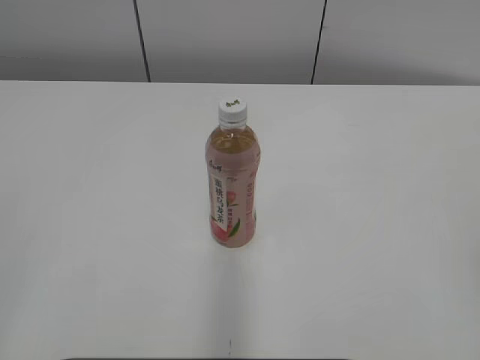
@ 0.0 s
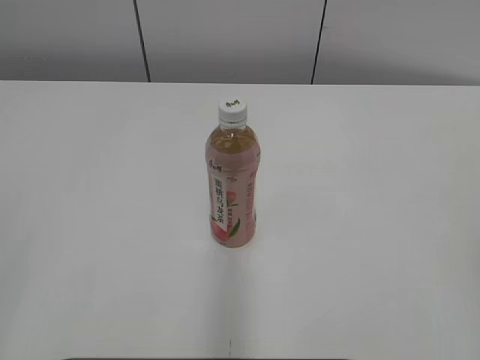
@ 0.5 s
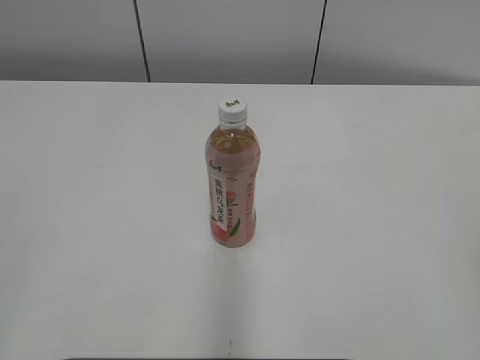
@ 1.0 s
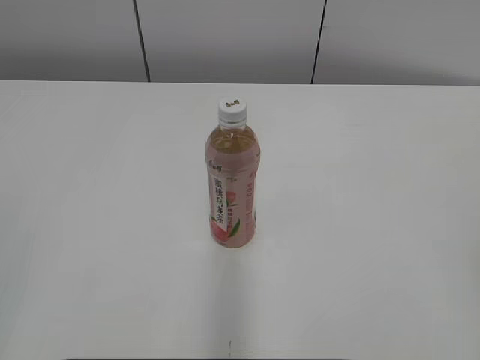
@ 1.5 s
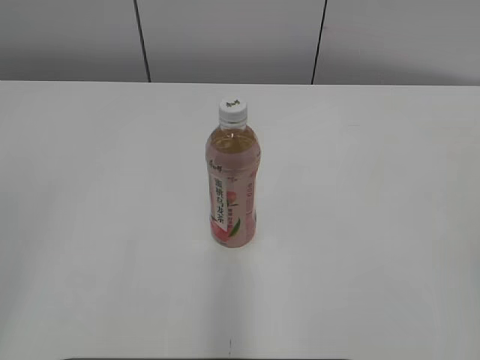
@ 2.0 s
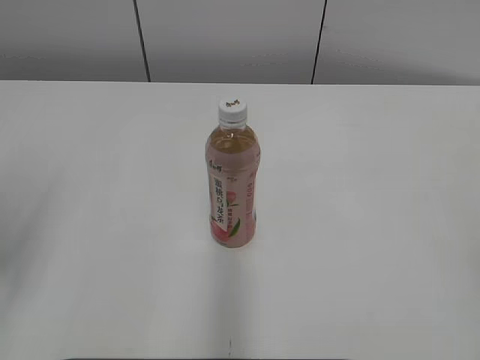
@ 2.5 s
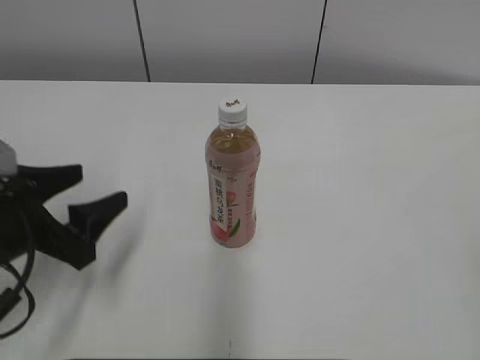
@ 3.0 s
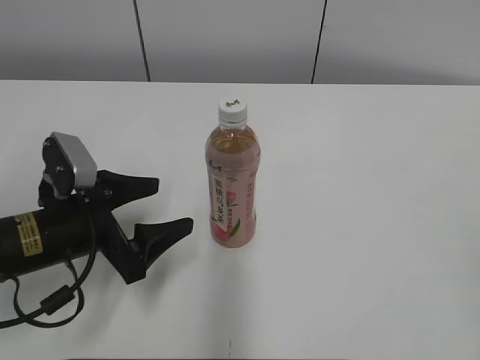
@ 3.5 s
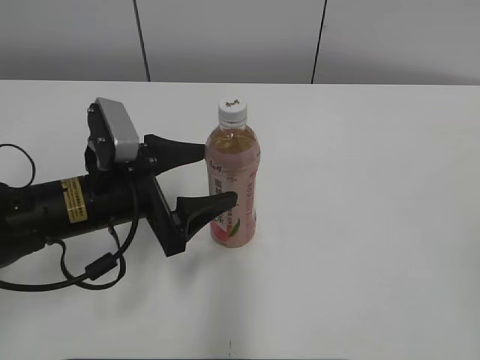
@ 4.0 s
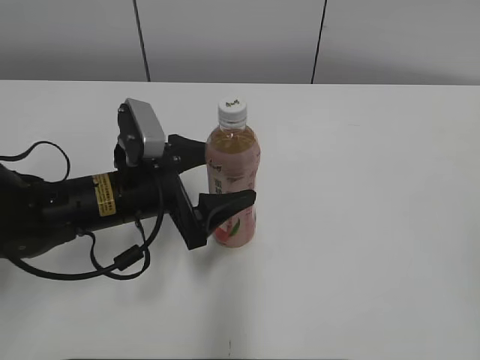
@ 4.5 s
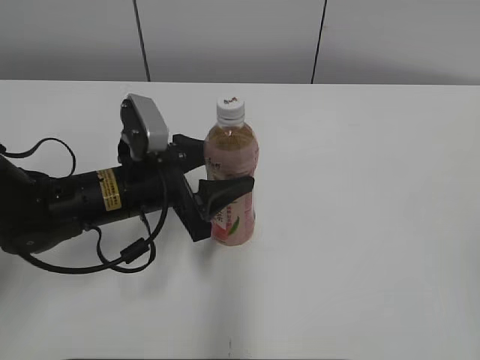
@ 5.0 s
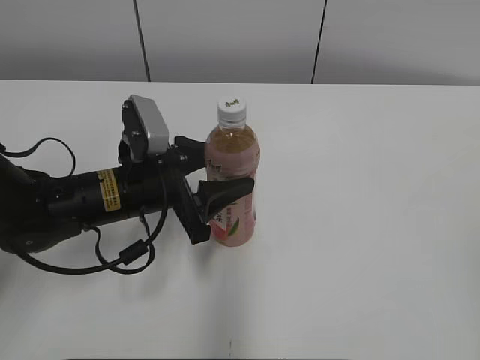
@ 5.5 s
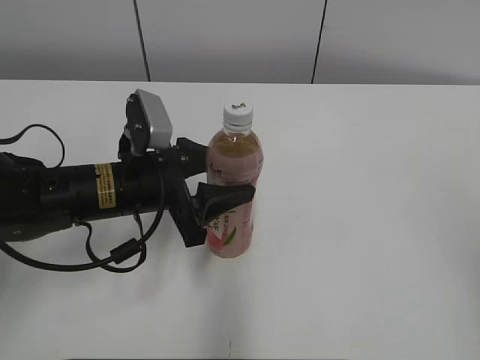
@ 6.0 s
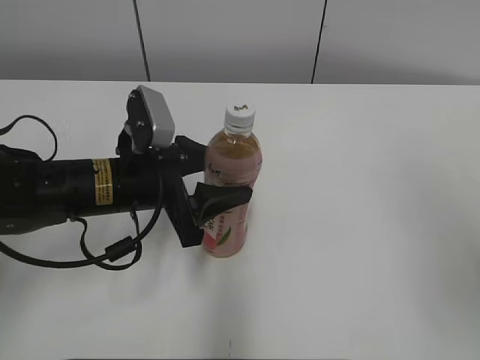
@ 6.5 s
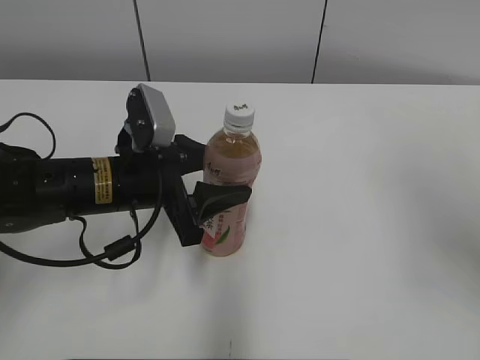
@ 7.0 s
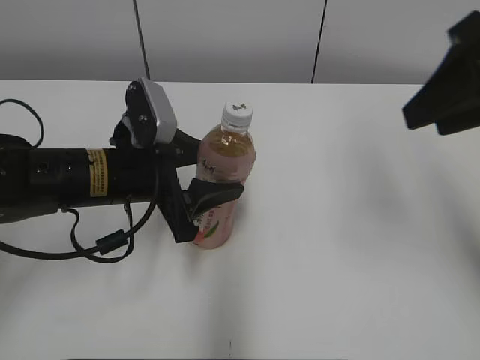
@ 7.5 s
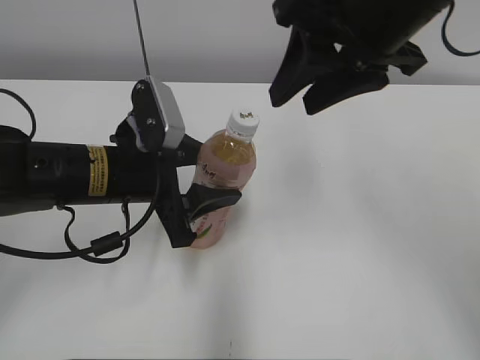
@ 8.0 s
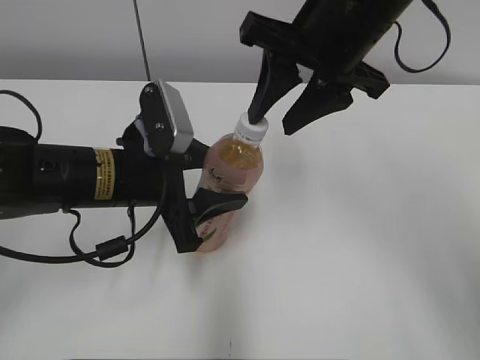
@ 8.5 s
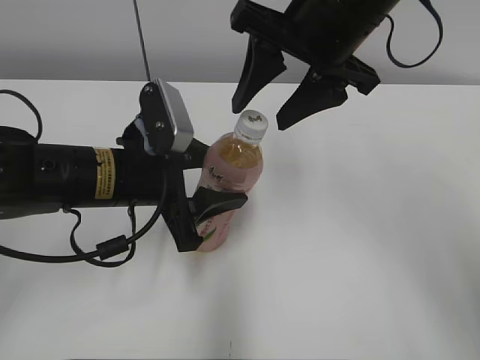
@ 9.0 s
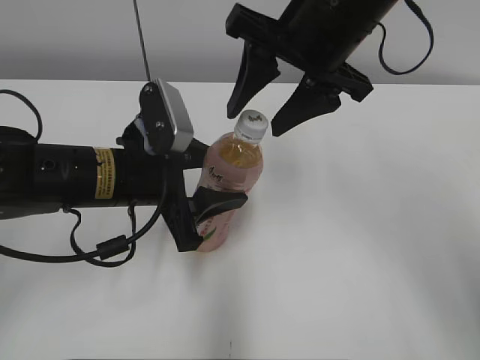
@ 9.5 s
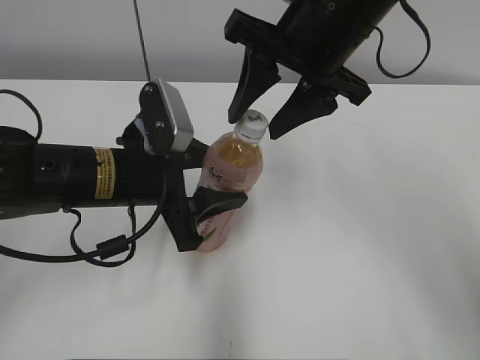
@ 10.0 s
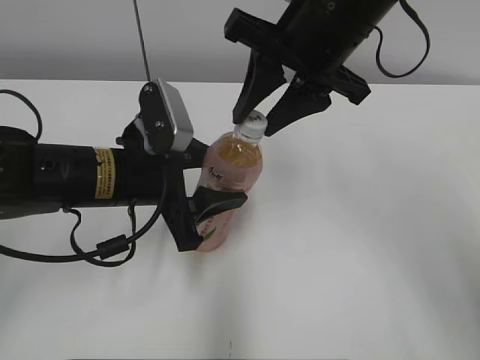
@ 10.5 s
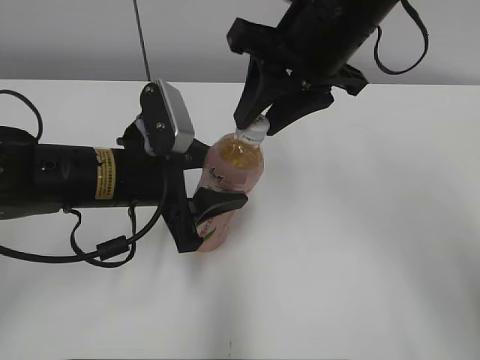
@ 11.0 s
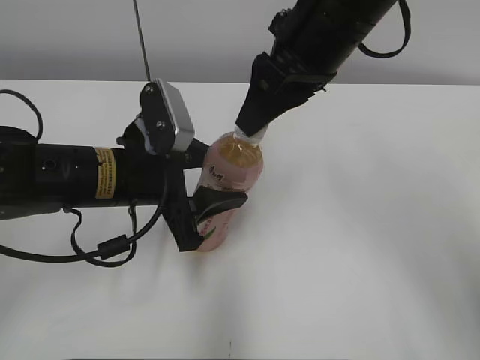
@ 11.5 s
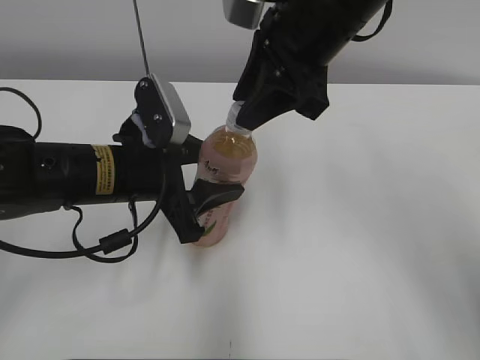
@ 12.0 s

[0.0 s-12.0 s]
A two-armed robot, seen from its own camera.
Step, 0.0 to 5.0 s: Grab the Peach Oolong Tea with the left hand.
2.0 to 4.0 s: The left gripper goes about 35 cm forward, downward and to the right, and opens up.
4.0 to 6.0 s: The right gripper ends up roughly 5 cm from where it was. The left gripper closes.
6.0 to 8.0 s: The right gripper goes some 30 cm forward and to the left.
8.0 to 10.0 s: The right gripper ends up about 5 cm from where it was.
10.0 to 12.0 s: The right gripper closes up.

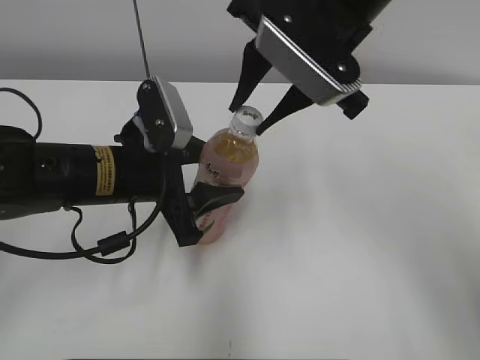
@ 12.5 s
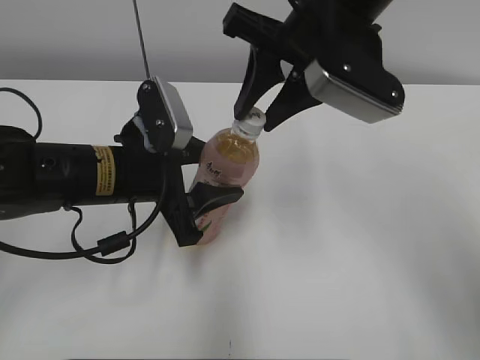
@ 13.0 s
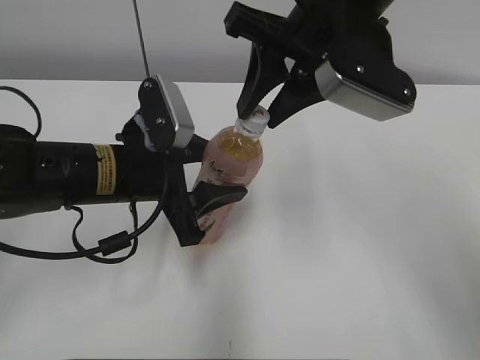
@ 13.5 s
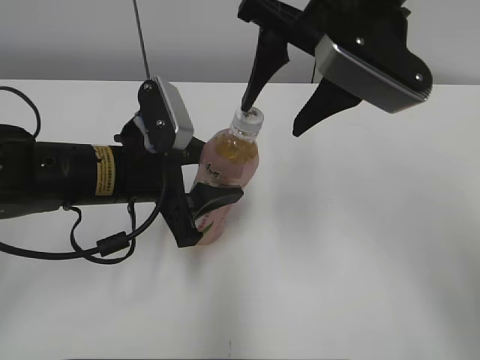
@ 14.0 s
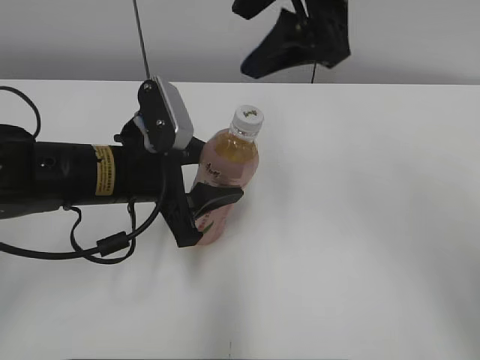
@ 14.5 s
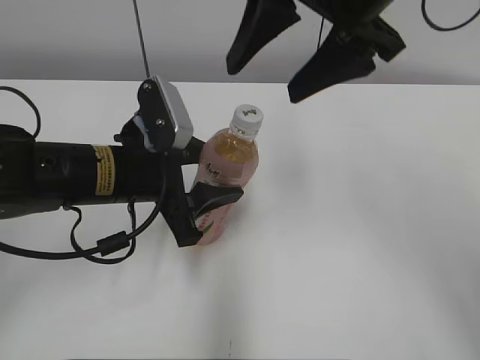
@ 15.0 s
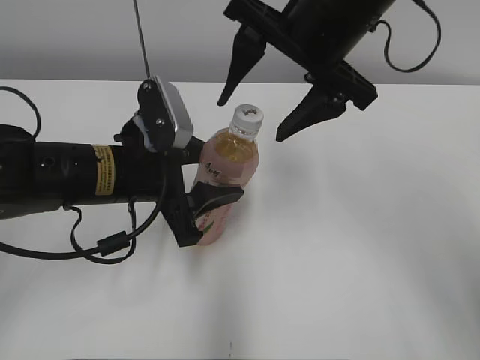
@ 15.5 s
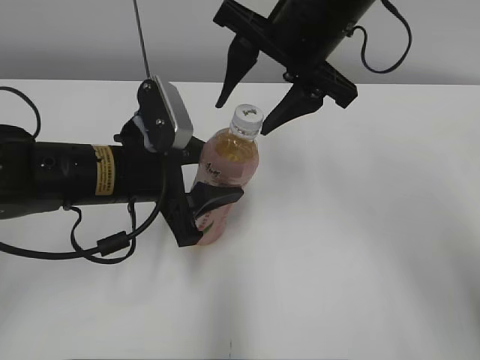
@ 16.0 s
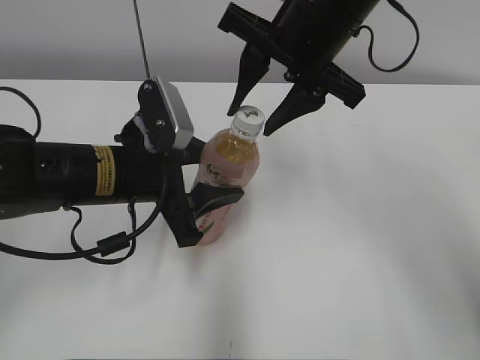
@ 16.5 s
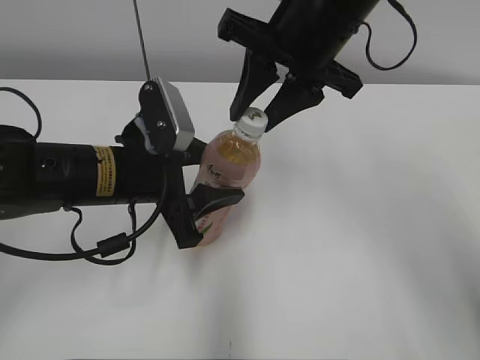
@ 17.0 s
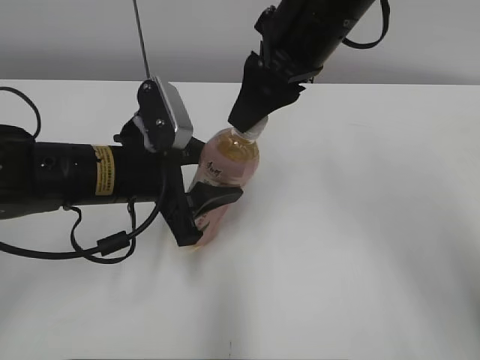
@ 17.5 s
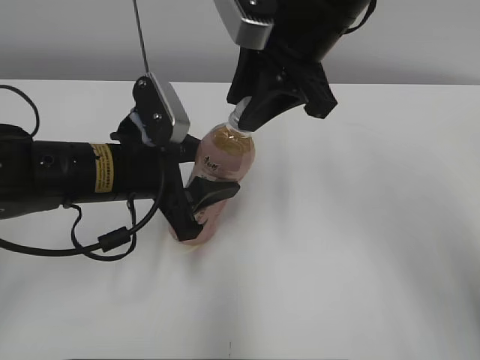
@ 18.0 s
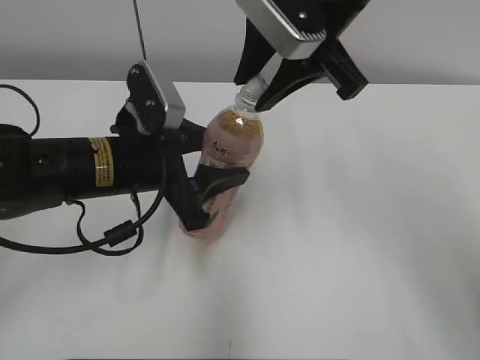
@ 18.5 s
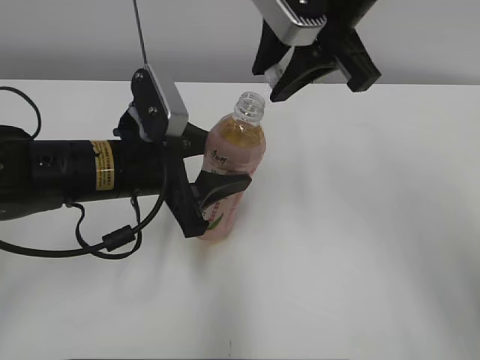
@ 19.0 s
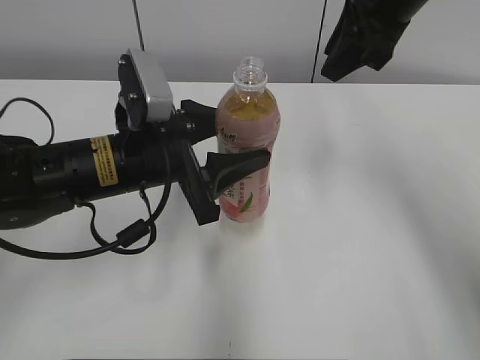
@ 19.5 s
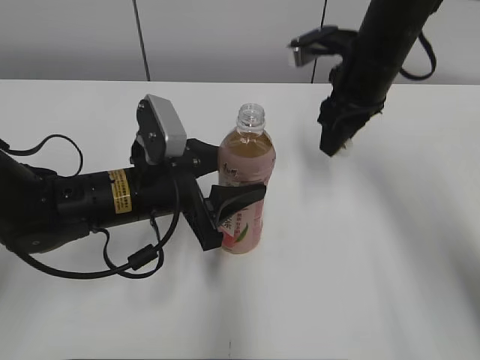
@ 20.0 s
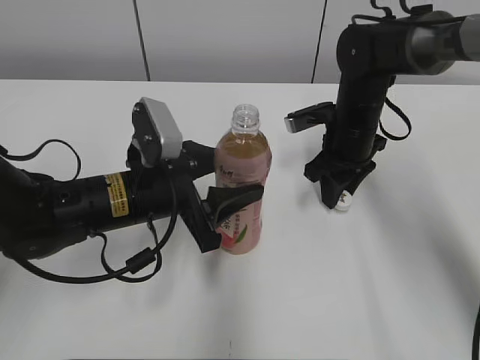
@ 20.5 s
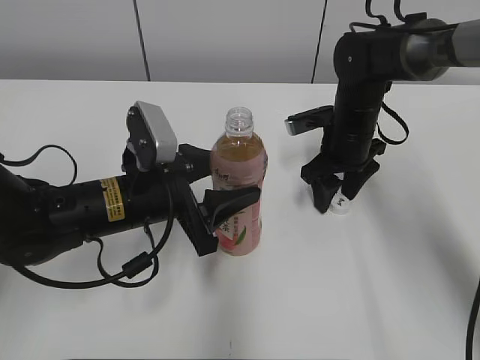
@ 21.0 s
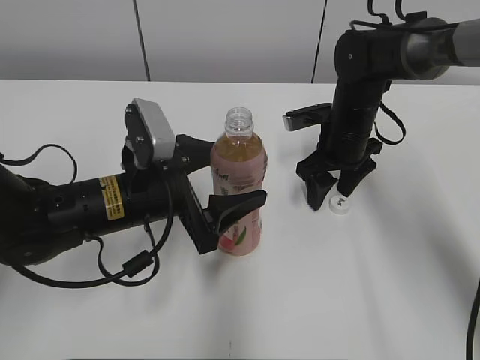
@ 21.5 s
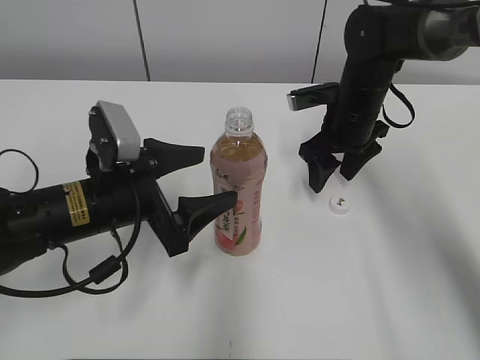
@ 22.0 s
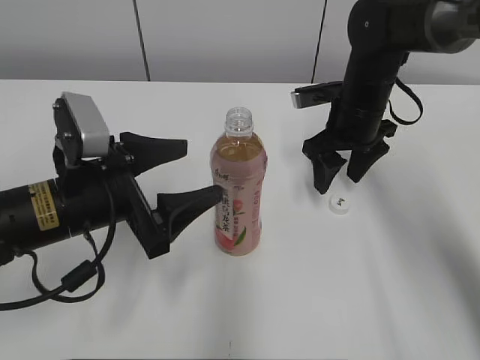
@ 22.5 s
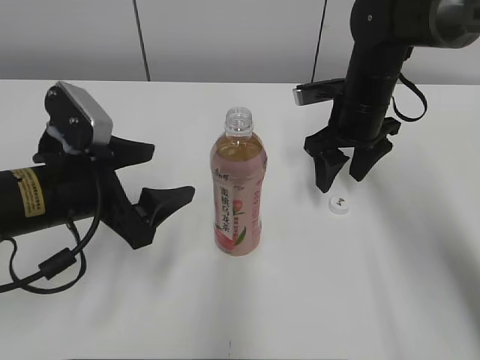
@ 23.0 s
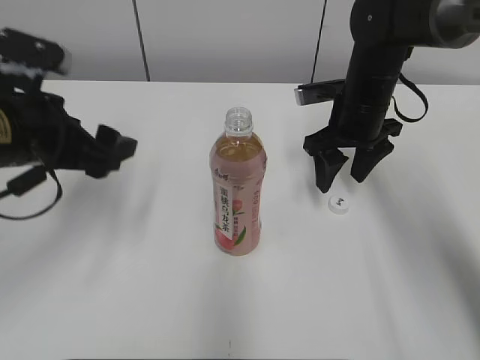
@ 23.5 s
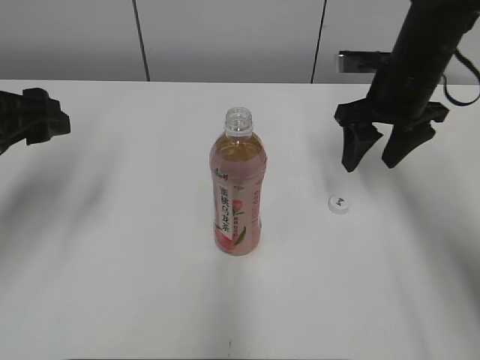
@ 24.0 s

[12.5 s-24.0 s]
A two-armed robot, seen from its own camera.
Step, 19.0 to 21.0 s: Place the bottle cap on the right.
12.5 to 14.5 s: The right gripper shifts some 5 cm upward, and opens up.
14.5 to 16.5 s: The right gripper shifts about 5 cm downward, and closes its fingers.
18.5 to 20.0 s: The right gripper shifts some 15 cm downward, to the right and forward.
20.0 to 22.0 s: The right gripper is displaced downward by about 10 cm, and opens up; the left gripper opens its fingers.
22.0 to 24.0 s: The right gripper travels upward by roughly 5 cm; the left gripper goes about 15 cm to the left and upward.

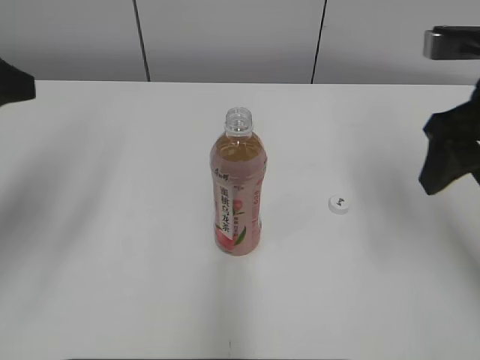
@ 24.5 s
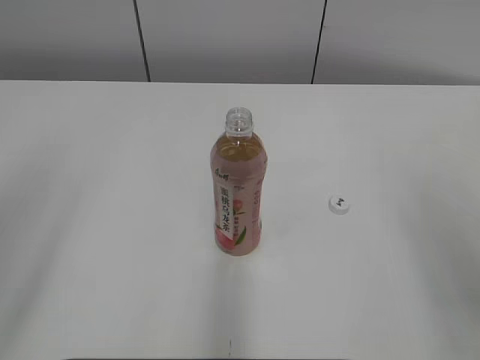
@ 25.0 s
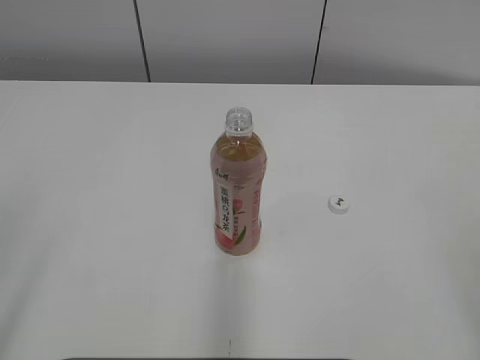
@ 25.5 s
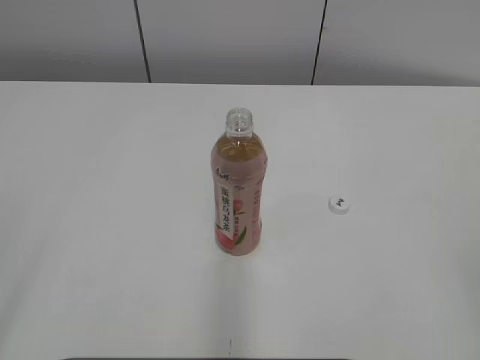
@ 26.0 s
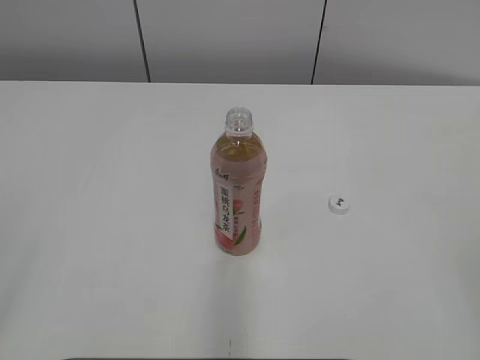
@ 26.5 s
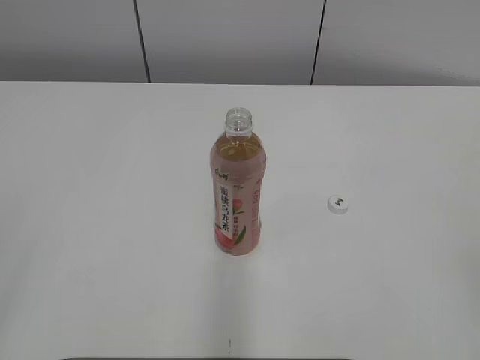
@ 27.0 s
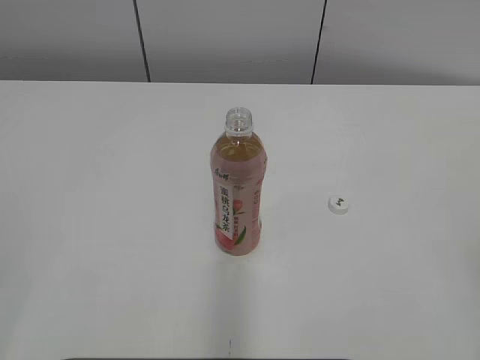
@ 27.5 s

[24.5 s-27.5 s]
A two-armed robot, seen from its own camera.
24.5 to 26.0 s: The grippers both shift backward by roughly 25 cm.
